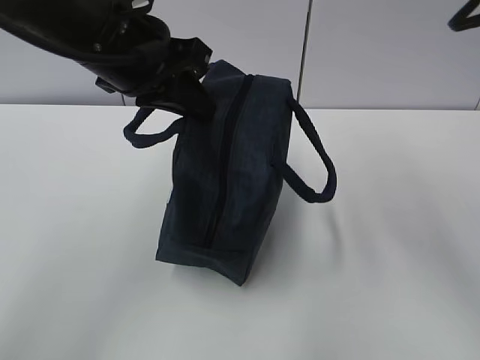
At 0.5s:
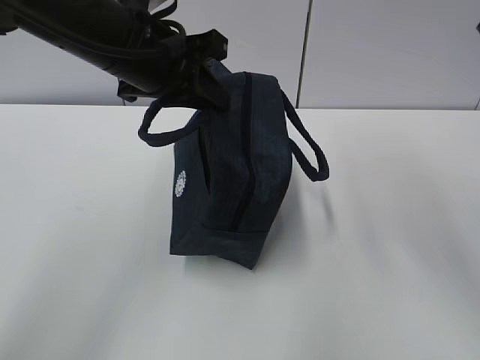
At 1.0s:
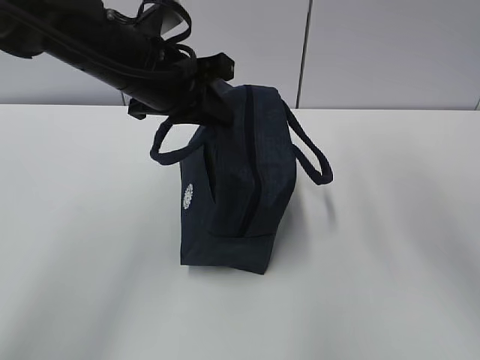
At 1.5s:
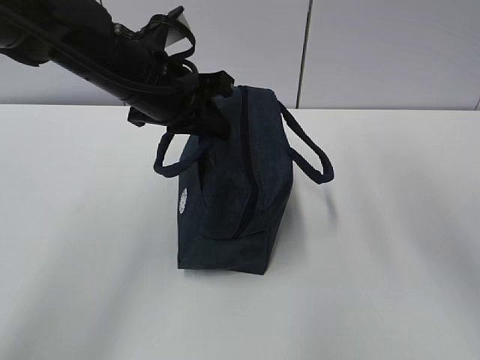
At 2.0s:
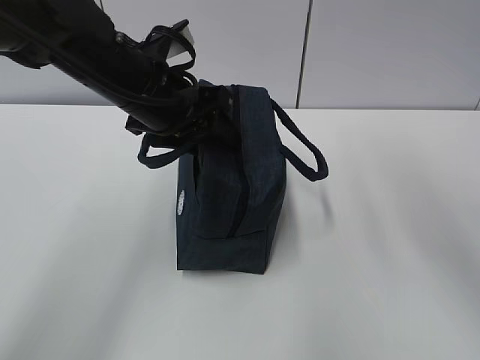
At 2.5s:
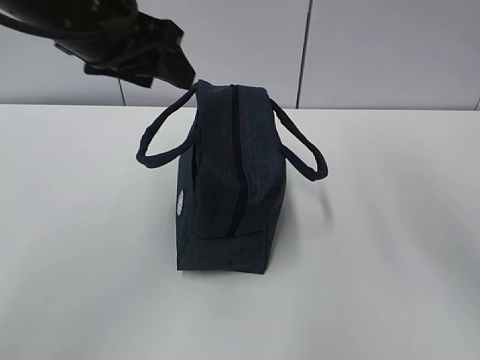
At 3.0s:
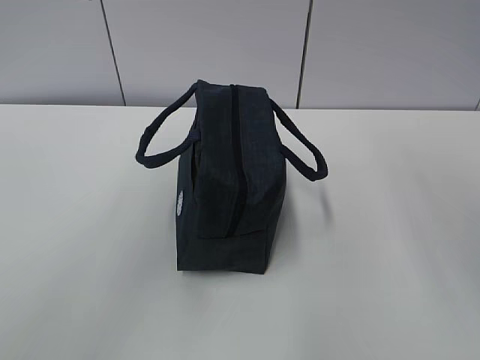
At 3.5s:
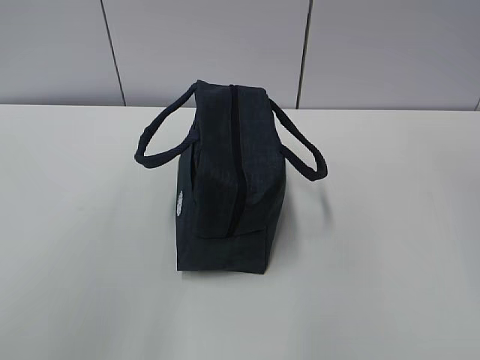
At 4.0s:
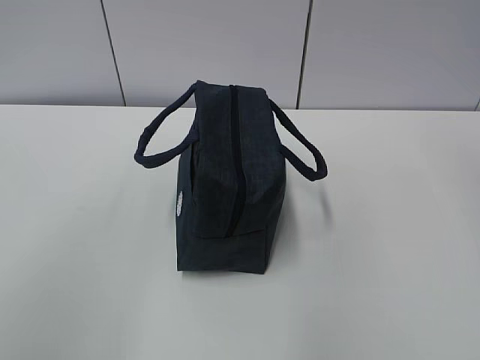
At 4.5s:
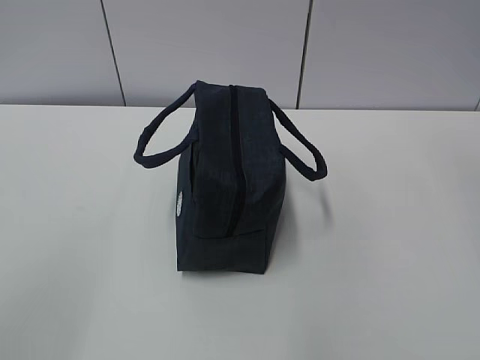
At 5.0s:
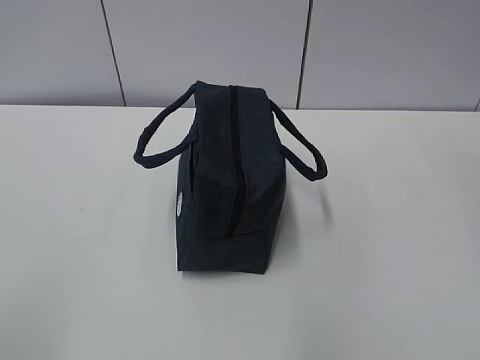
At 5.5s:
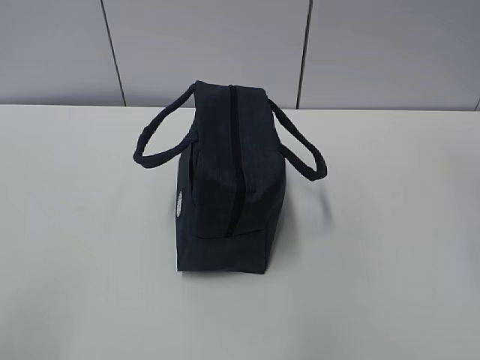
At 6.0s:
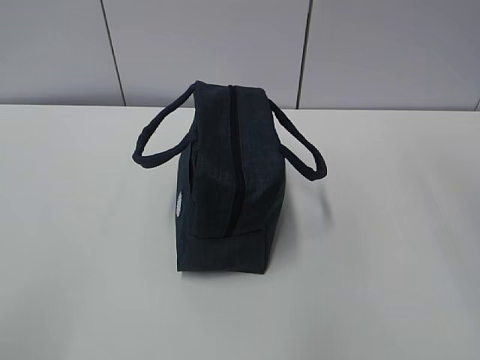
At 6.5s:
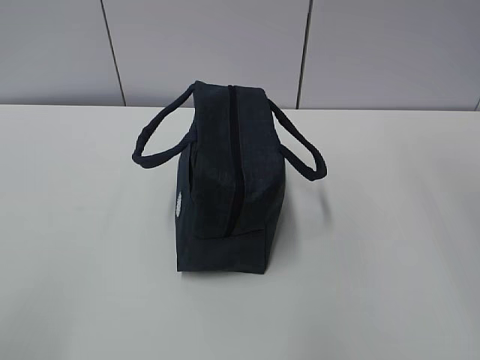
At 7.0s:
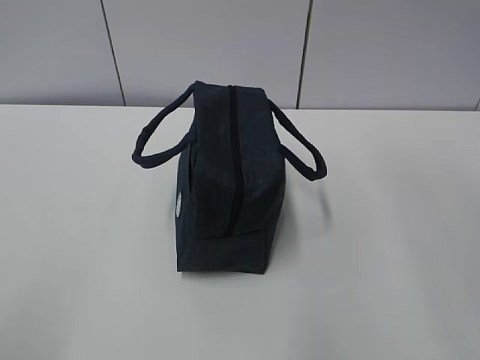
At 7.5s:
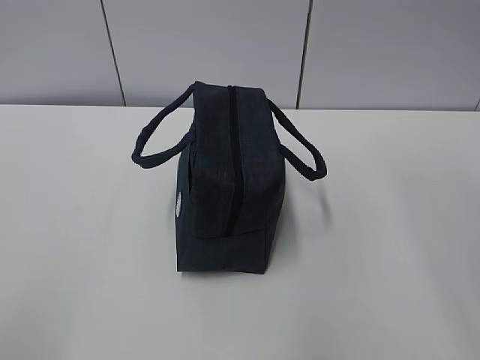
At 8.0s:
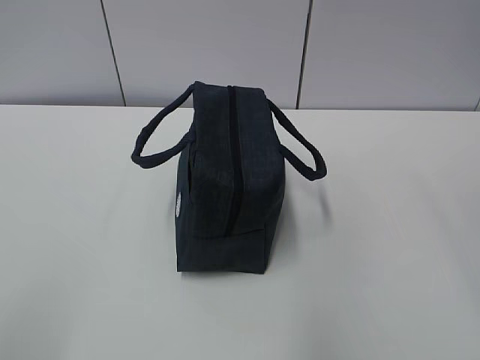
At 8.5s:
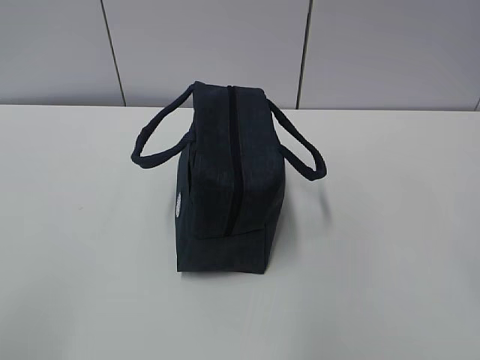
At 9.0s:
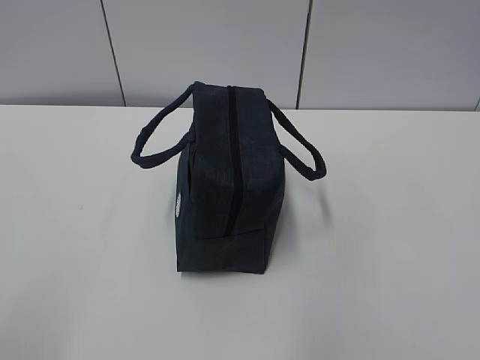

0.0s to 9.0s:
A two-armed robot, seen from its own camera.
0.0s to 2.0s: The left gripper travels downward by roughly 5 cm, and opens.
2.0s to 4.5s: The right gripper is displaced backward, upward and to the right by approximately 15 cm; the left gripper is displaced backward and to the left by some 40 cm.

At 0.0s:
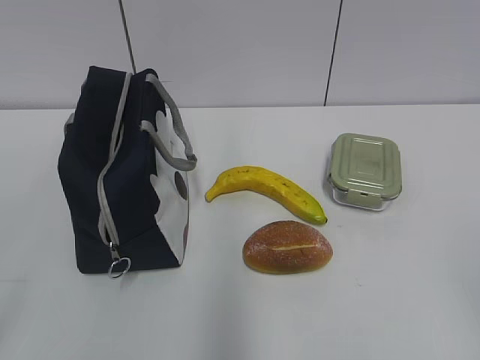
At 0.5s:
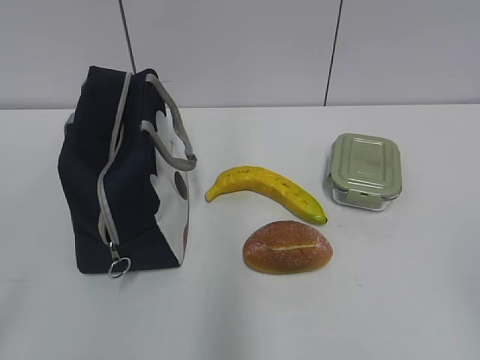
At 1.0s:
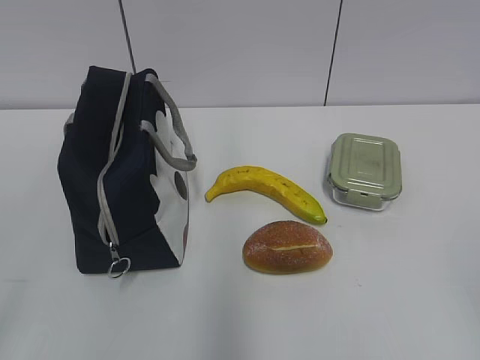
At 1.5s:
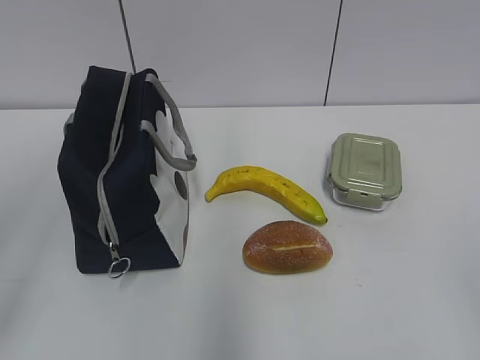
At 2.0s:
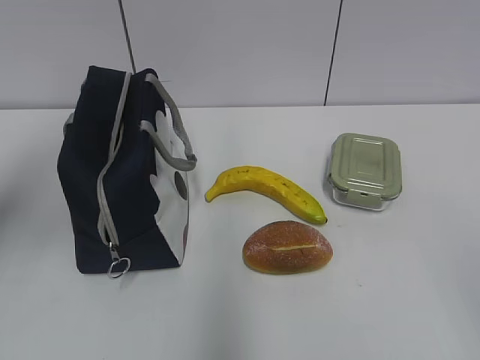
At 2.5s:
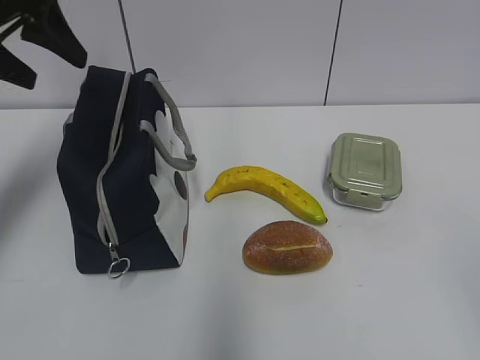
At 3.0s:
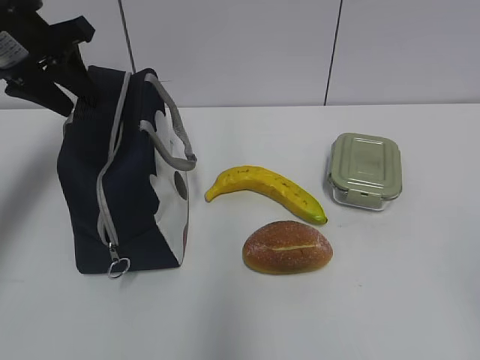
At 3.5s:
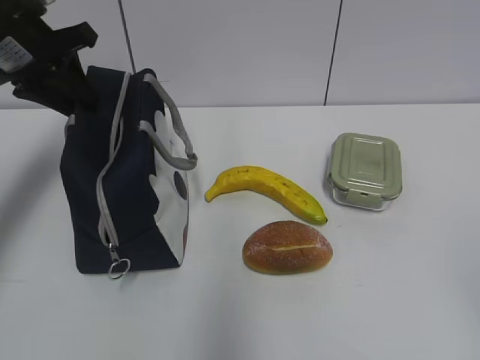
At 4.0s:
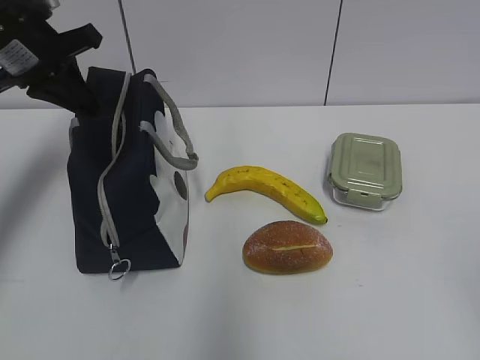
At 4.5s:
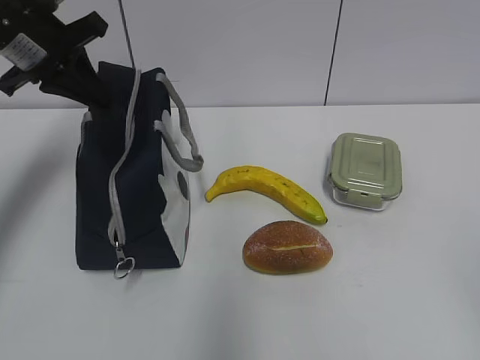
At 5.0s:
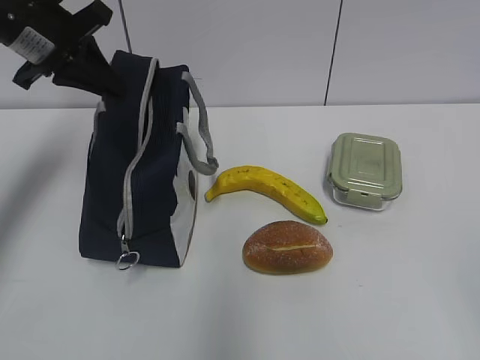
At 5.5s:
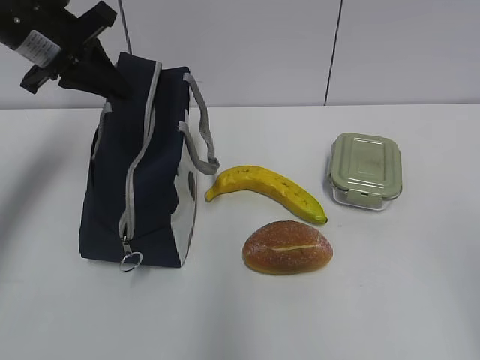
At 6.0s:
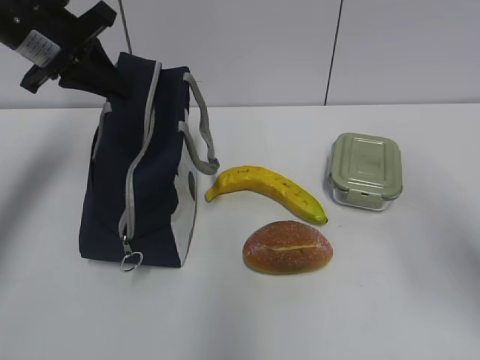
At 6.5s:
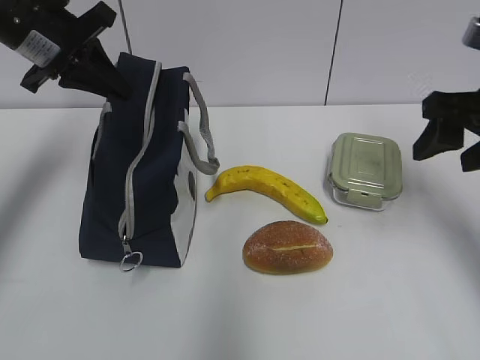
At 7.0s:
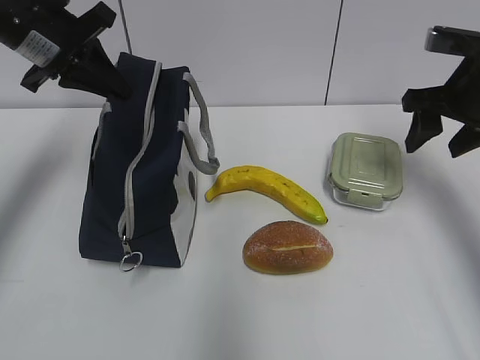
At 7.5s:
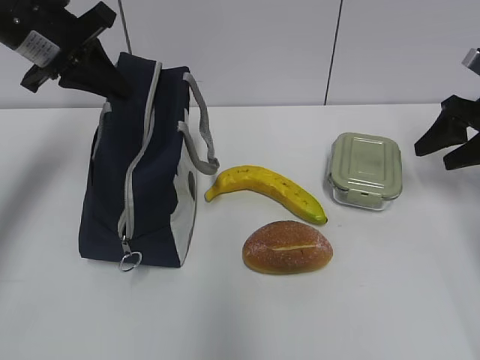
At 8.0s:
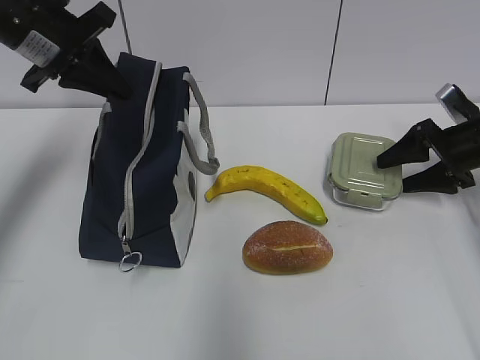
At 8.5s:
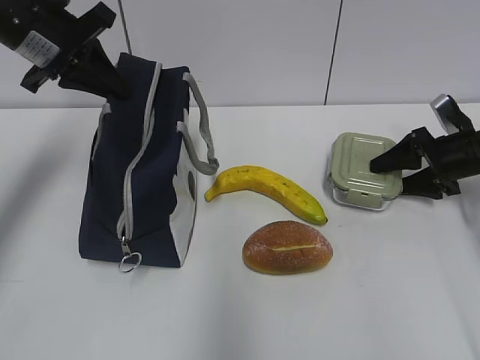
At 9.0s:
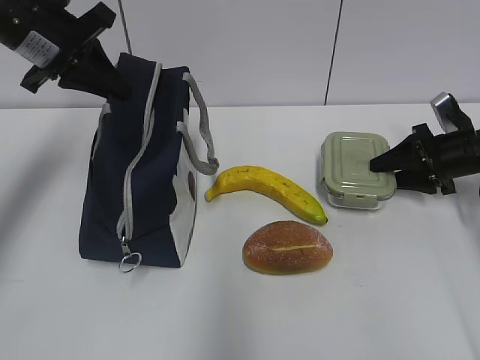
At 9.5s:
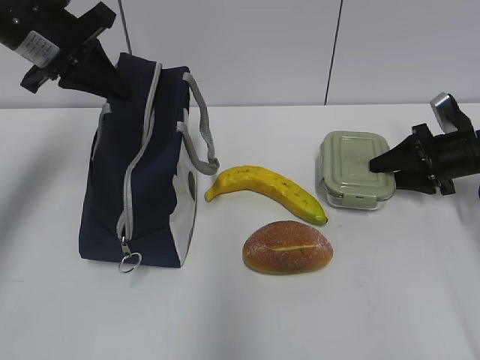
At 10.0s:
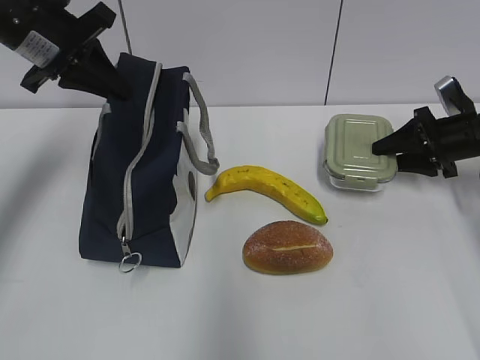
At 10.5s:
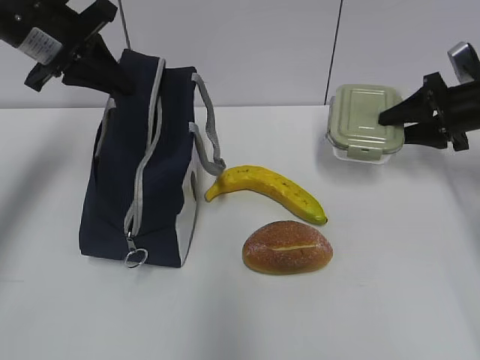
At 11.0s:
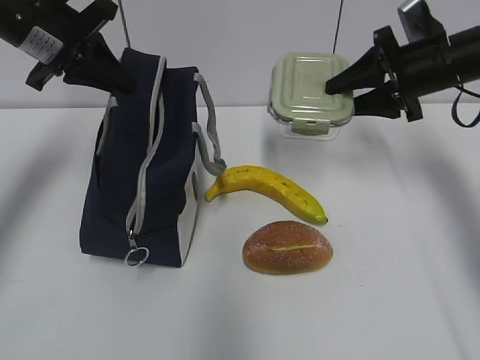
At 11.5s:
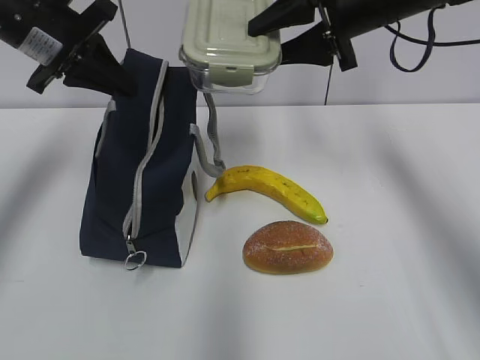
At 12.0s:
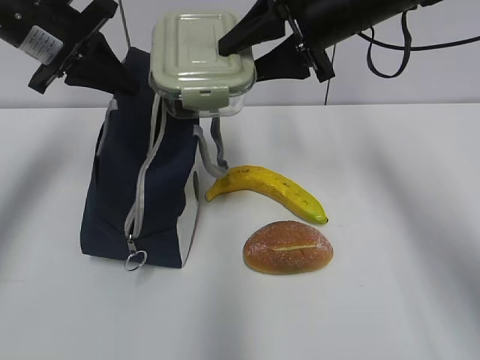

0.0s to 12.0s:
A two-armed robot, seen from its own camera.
Step, 0.0s to 9.0s: Grab the lunch box with your right hand.
2.0s to 4.0s: The left gripper shifts approximately 20 cm forward and downward, and closes.
4.0s to 6.0s: The right gripper travels forward by approximately 15 cm.
6.0s to 8.0s: The right gripper goes about 30 cm forward and downward.
8.0s to 10.0s: The right gripper closes up.
10.0s to 12.0s: The right gripper heads to the left and upward, covering approximately 30 cm.

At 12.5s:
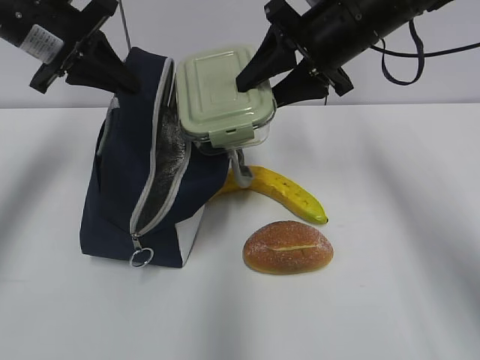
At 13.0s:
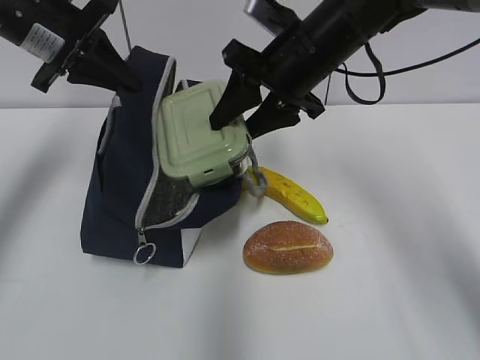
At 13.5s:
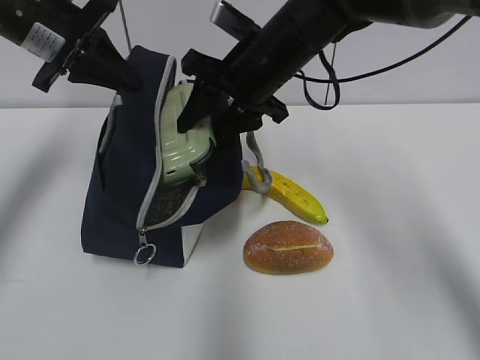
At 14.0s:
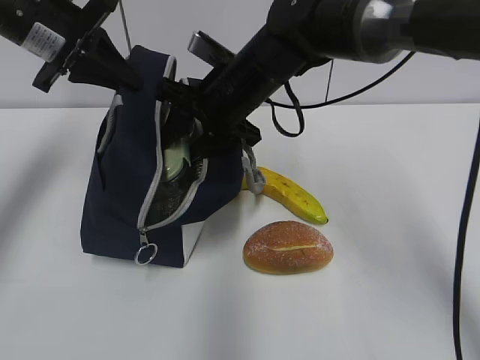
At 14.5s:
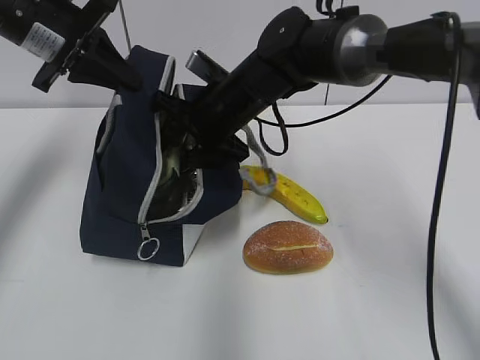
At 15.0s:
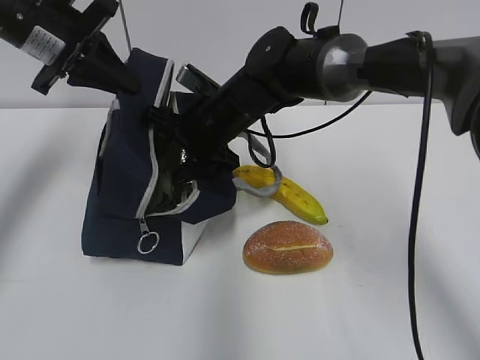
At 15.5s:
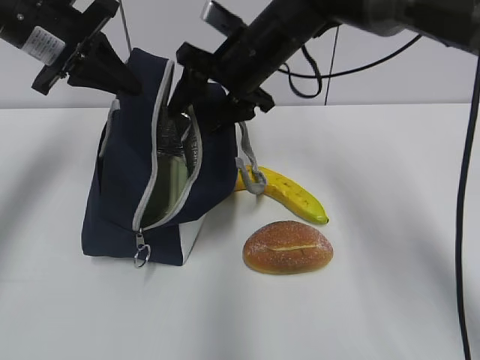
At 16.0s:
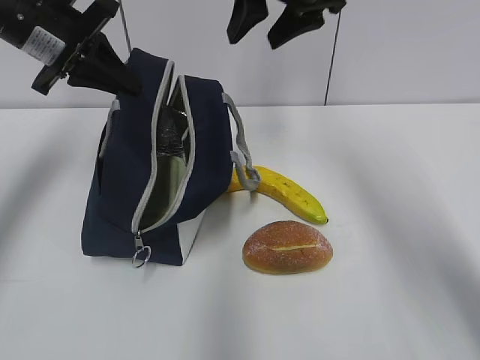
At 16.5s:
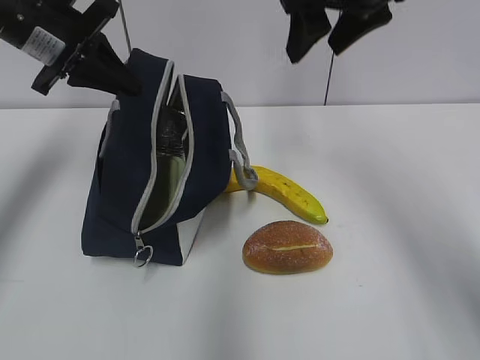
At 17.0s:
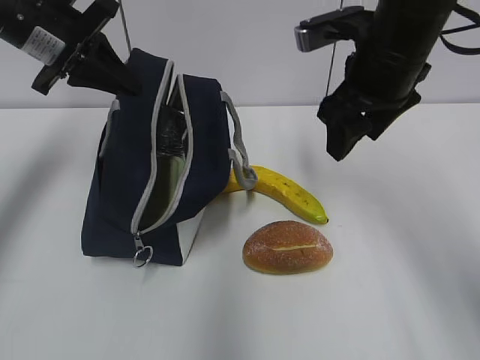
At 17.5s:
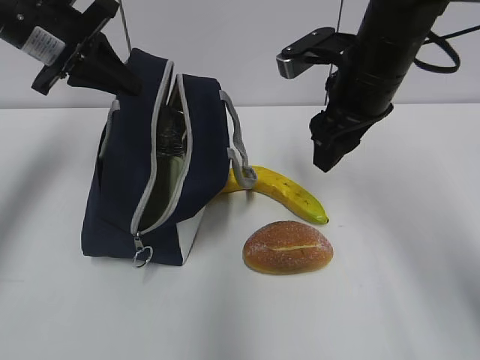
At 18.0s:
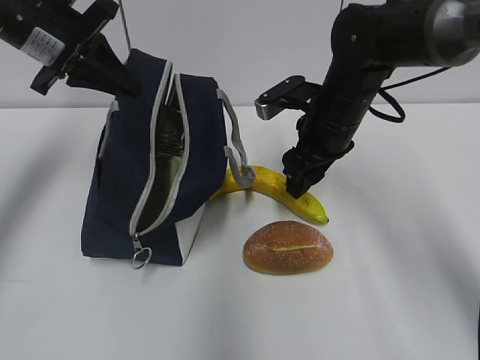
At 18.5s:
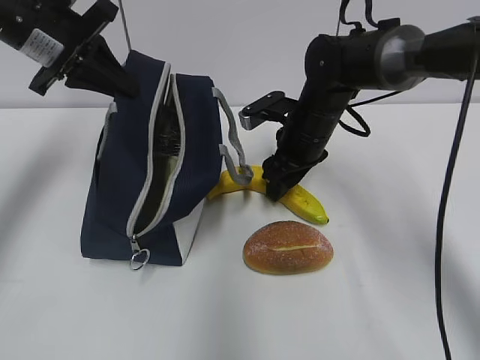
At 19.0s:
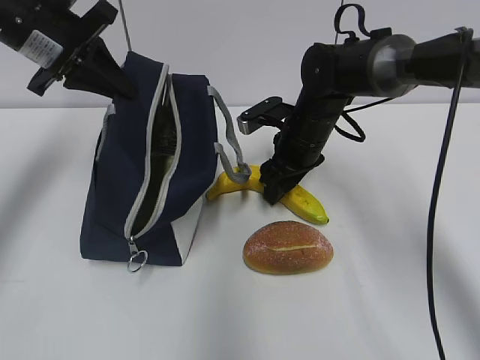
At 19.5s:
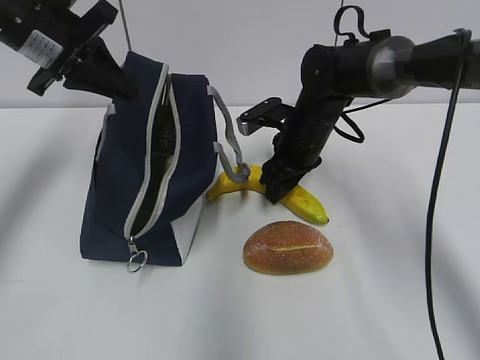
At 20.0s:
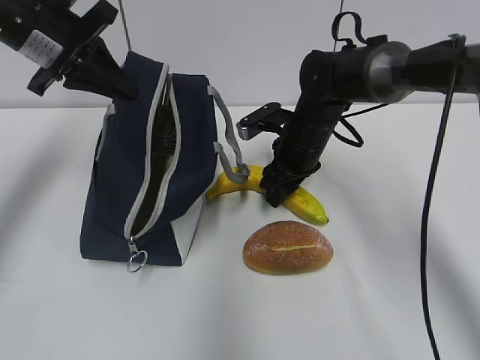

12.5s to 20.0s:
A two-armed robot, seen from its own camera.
Step, 12.5s to 15.0s: Place it into the bag with your right hand.
Step, 15.5s to 20.0s: Grab the banana with your right hand.
12.5s to 14.5s: The right gripper goes about 15 cm to the left and downward.
14.5s to 16.5s: The right gripper heads upward and to the right, covering roughly 20 cm.
16.5s to 18.0s: The right gripper goes some 20 cm downward.
18.0s to 20.0s: The right gripper shifts roughly 5 cm downward.
